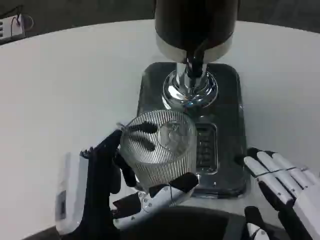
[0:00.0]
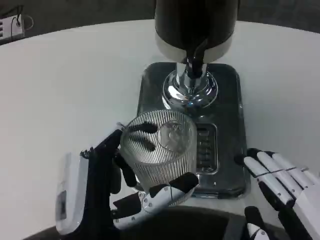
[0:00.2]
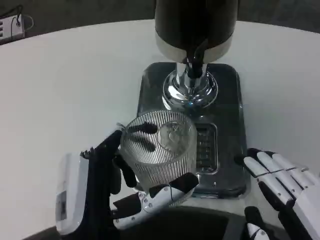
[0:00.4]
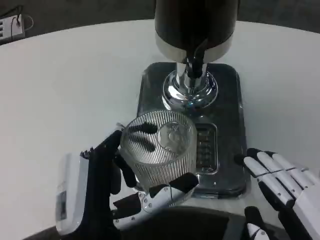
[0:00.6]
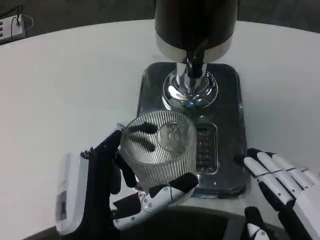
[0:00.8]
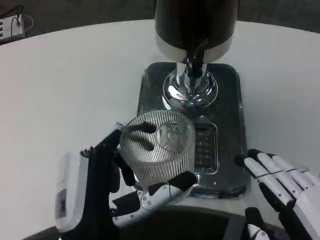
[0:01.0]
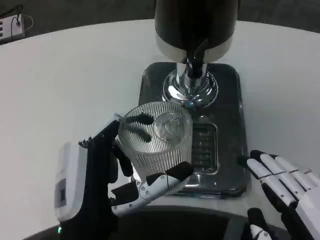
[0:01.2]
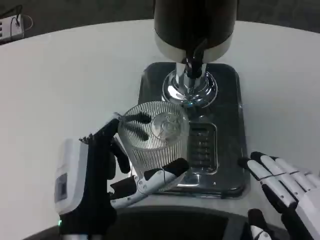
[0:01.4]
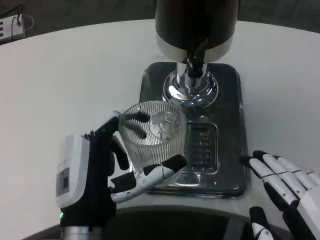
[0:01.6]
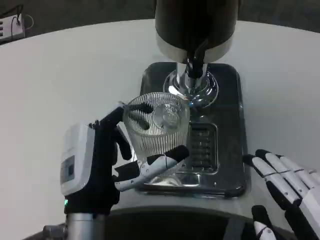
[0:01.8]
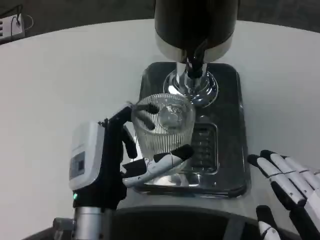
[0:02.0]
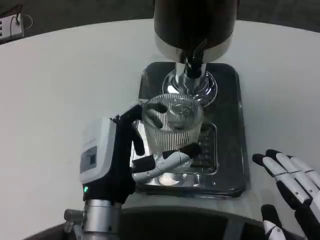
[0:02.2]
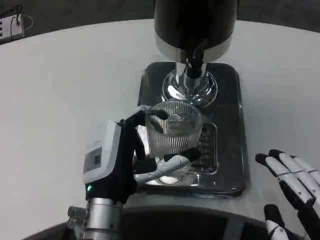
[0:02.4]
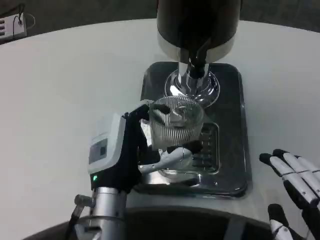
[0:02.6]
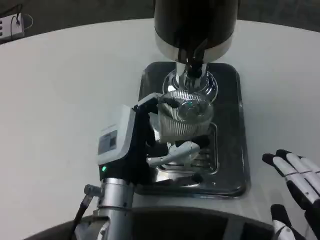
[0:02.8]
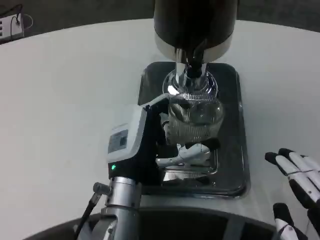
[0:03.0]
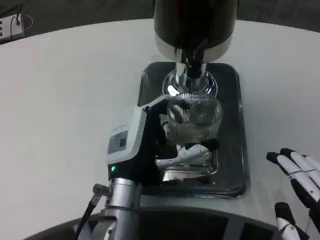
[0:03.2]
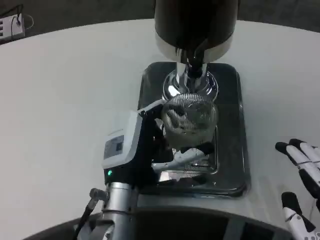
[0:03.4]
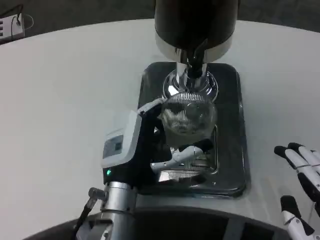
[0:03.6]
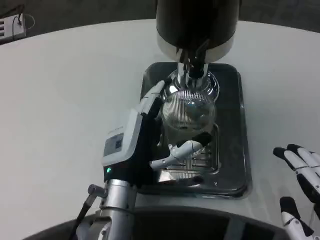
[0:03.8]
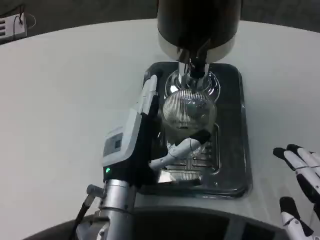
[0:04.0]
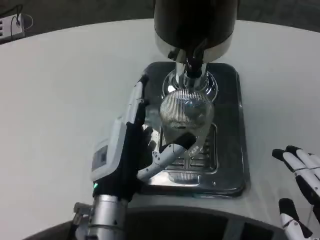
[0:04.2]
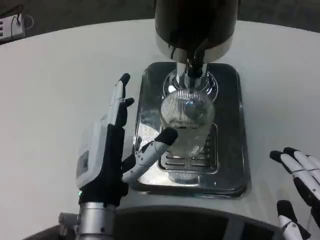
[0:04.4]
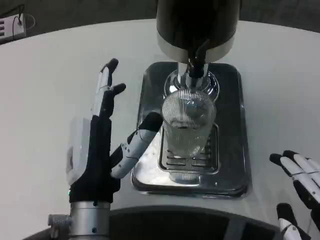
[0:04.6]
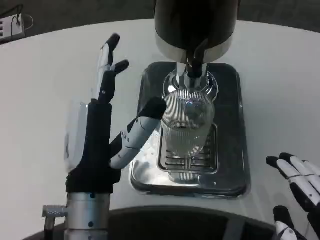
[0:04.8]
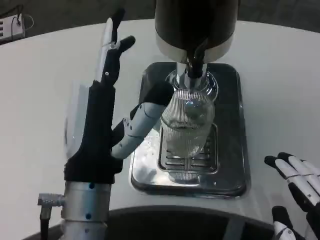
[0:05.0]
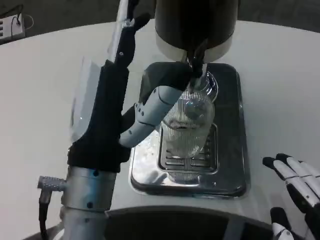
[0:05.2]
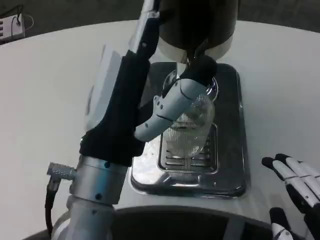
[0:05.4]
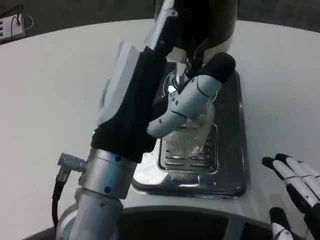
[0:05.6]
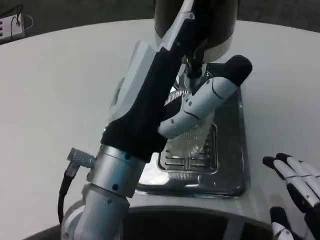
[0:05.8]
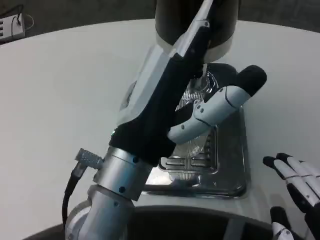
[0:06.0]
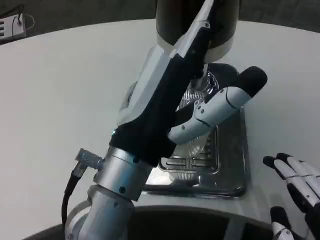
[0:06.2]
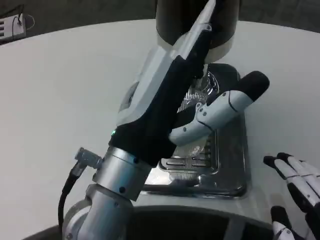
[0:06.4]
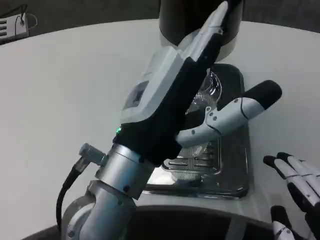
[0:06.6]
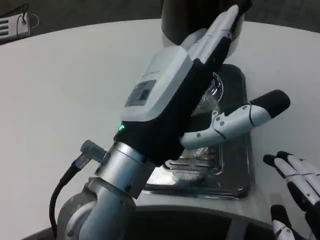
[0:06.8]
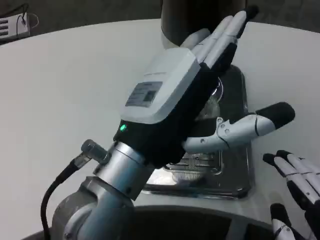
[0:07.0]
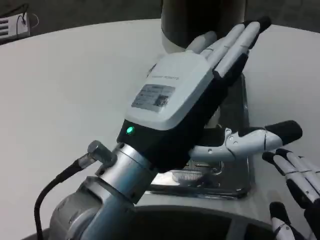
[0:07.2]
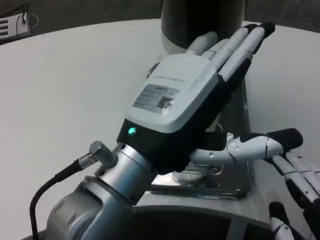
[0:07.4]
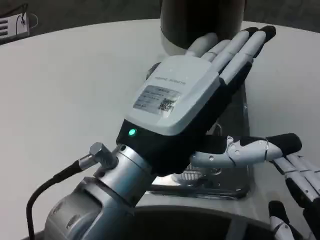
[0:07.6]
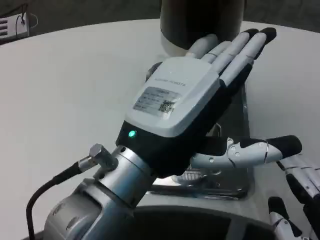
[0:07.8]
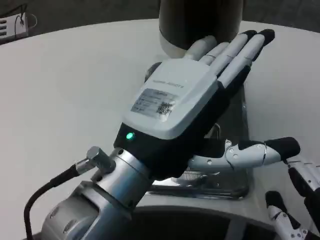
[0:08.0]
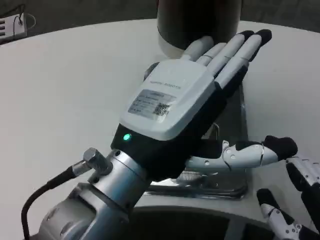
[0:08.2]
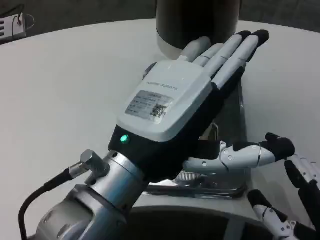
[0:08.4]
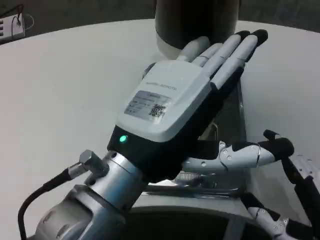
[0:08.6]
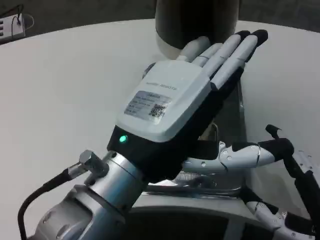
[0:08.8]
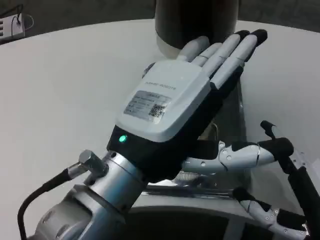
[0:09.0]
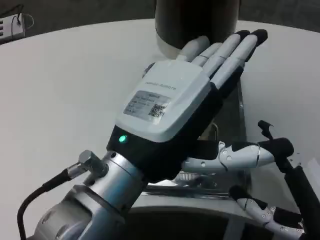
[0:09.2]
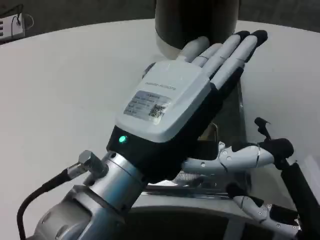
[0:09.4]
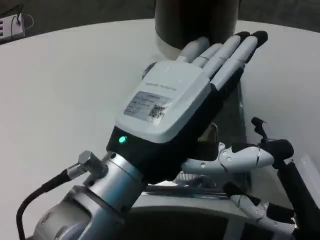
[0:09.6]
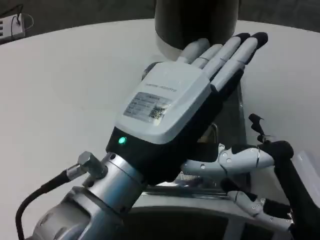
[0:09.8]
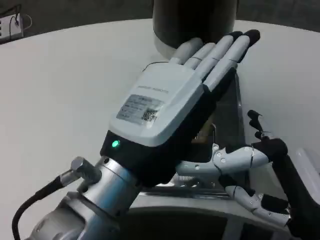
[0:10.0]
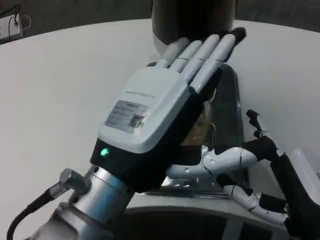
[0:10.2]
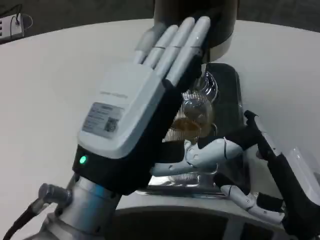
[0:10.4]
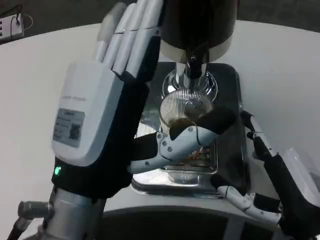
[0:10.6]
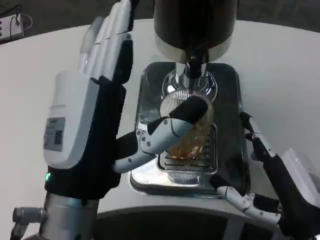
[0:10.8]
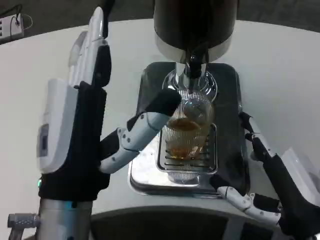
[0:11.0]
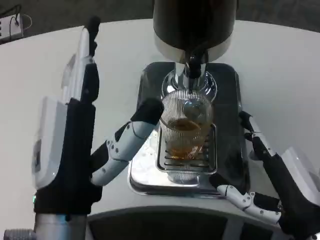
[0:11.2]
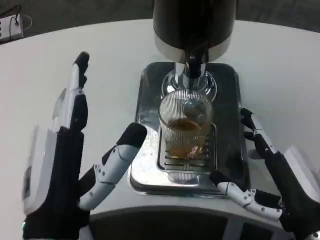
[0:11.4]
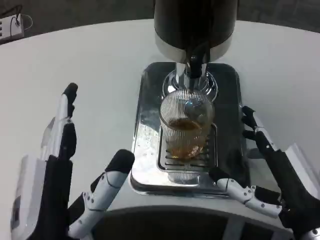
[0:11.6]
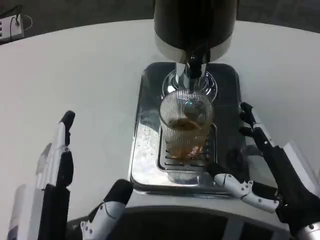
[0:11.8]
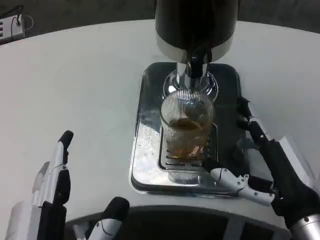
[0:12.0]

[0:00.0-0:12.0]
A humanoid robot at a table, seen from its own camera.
Task of the whole recording: Grasp the cup under the faucet to collect the drink, then remove the cup.
0:00.0 to 0:01.6: The hands make only small movements.
0:01.6 to 0:03.0: The left hand is displaced forward by about 10 cm.
0:03.0 to 0:04.4: There are only small adjustments of the hands.
0:04.4 to 0:06.0: The left hand travels upward by approximately 10 cm.
0:07.6 to 0:09.0: The right hand moves forward, roughly 5 cm.
0:10.4 to 0:12.0: The left hand is displaced downward and backward by approximately 15 cm.

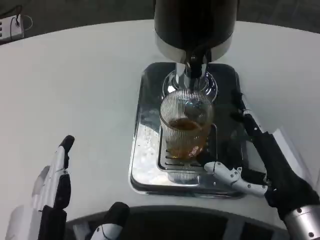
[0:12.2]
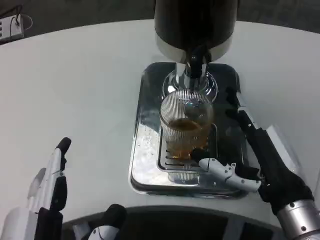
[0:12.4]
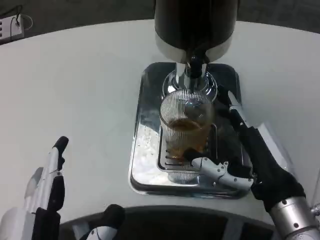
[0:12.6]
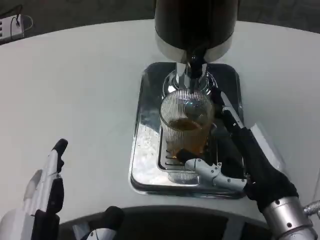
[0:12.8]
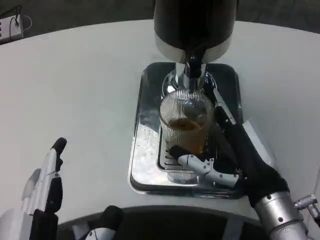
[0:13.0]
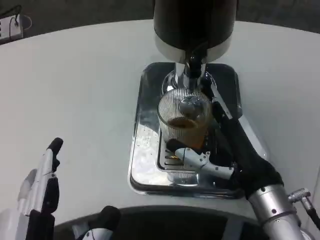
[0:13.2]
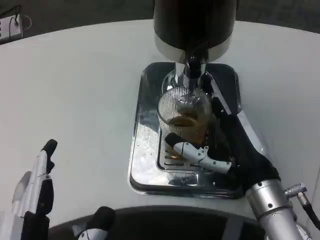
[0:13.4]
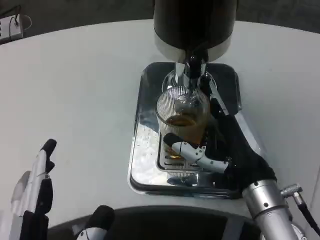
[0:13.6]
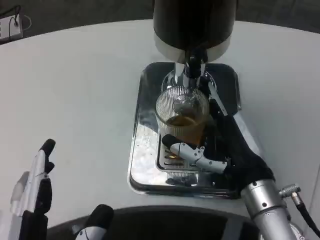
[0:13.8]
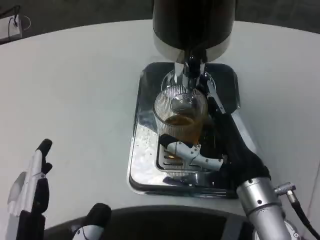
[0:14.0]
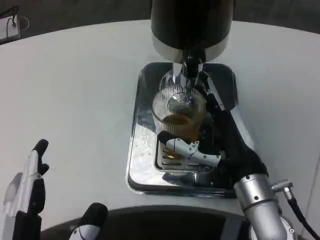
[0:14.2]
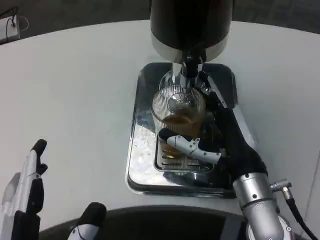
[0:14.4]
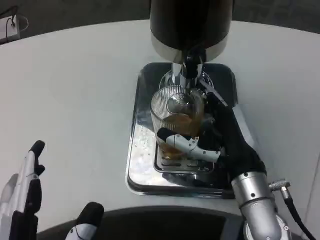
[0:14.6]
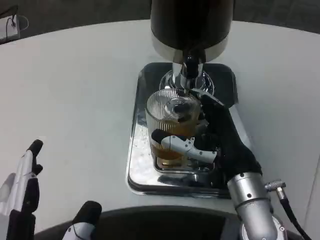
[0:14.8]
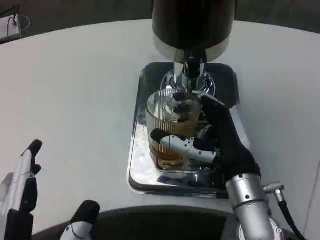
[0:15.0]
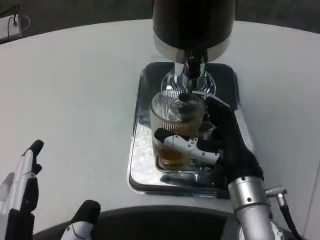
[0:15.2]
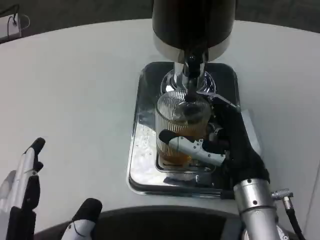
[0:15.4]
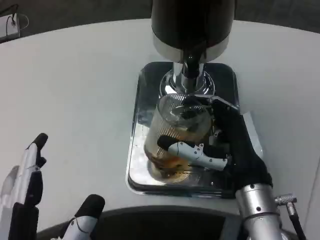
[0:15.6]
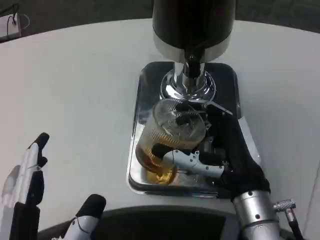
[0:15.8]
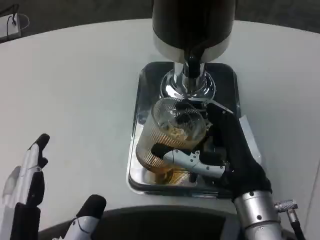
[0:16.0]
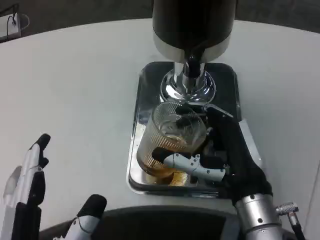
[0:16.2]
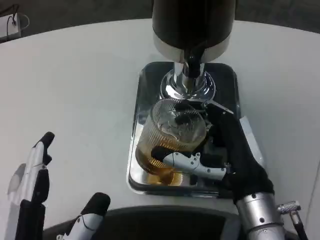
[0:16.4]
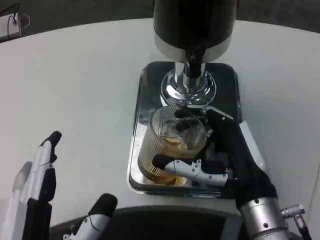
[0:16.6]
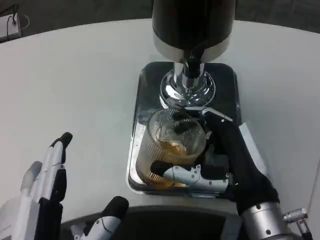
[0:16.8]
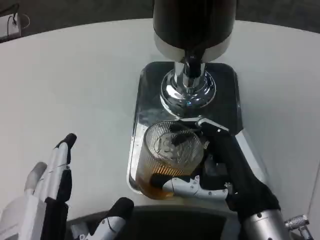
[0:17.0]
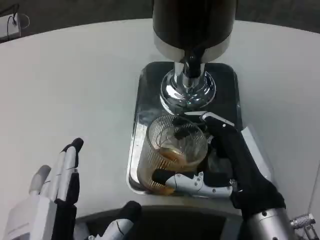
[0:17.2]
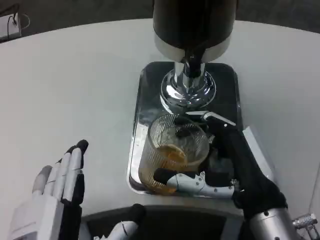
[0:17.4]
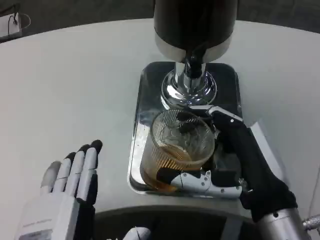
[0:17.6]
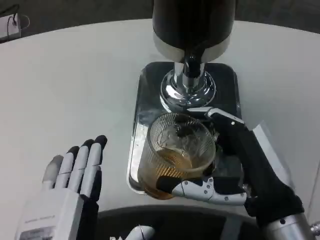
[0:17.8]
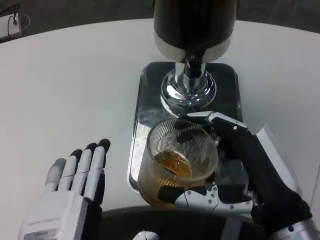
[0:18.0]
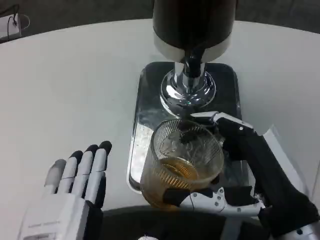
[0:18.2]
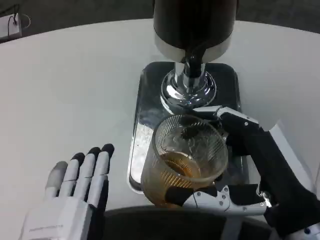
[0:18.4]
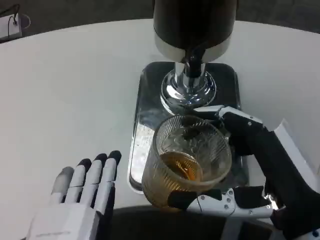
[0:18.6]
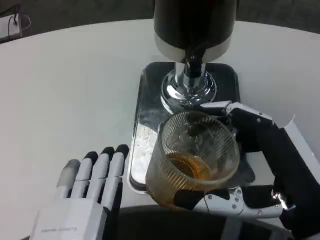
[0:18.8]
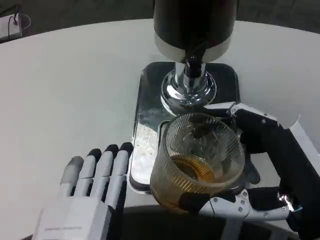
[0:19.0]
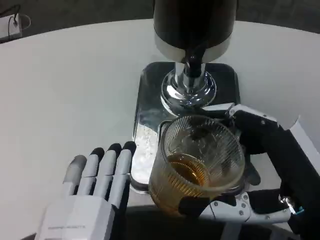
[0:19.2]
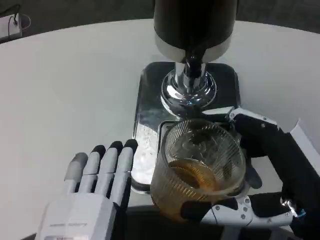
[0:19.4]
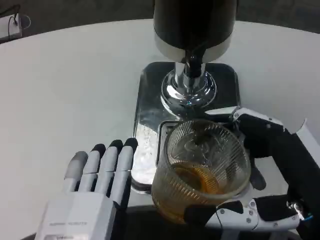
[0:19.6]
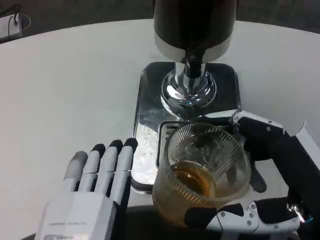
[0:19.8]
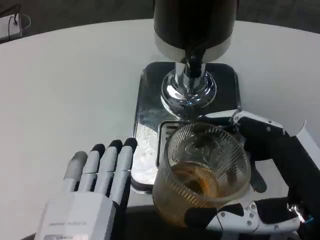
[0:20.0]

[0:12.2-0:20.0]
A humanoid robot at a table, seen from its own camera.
Task of the whole recording: Grasp the cup under the faucet to collect the drink, then remove the cup.
0:12.2 to 0:13.8: The right hand changes place by approximately 5 cm.
0:13.8 to 0:15.4: The hands make only small movements.
0:16.8 to 0:18.4: The right hand heads backward, covering about 5 cm.

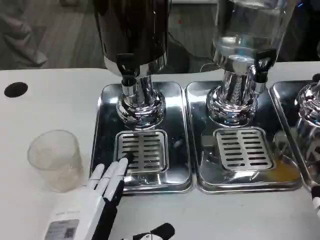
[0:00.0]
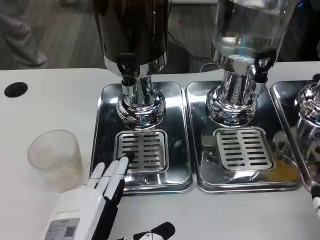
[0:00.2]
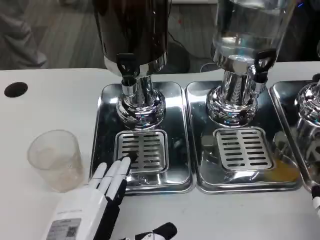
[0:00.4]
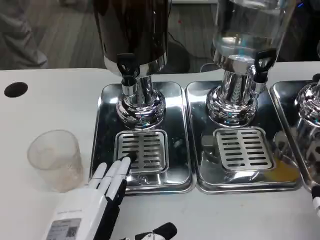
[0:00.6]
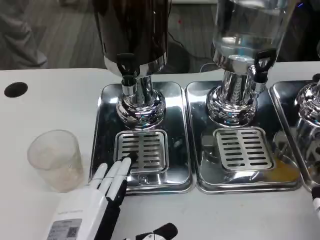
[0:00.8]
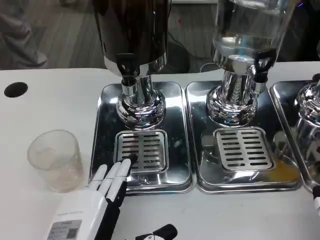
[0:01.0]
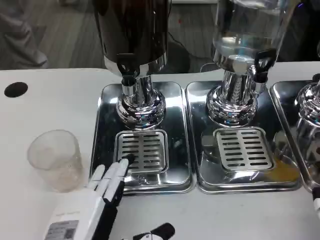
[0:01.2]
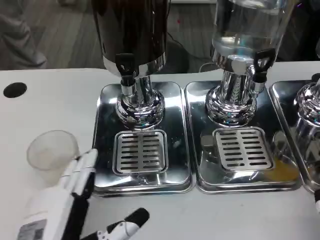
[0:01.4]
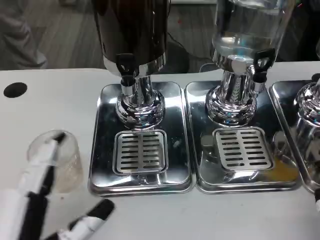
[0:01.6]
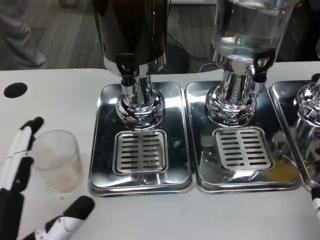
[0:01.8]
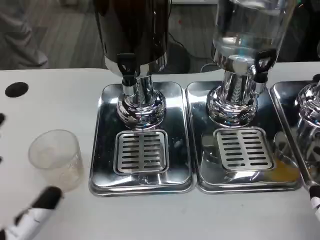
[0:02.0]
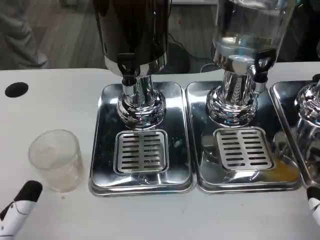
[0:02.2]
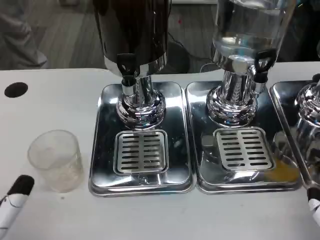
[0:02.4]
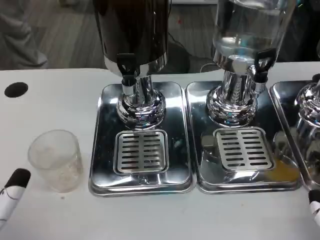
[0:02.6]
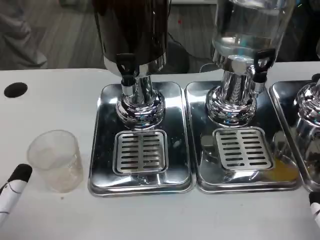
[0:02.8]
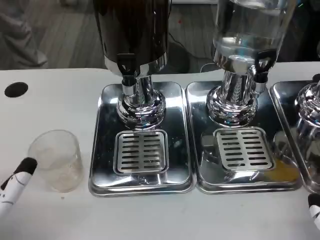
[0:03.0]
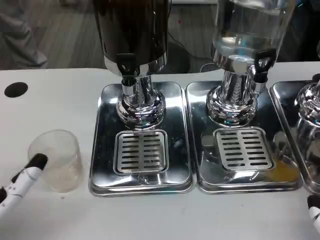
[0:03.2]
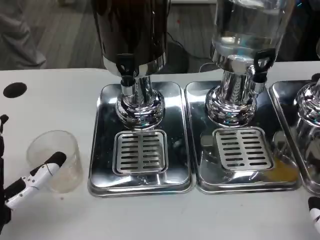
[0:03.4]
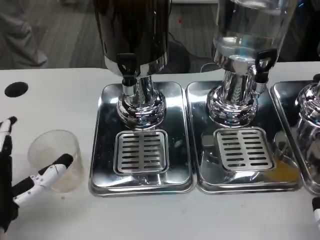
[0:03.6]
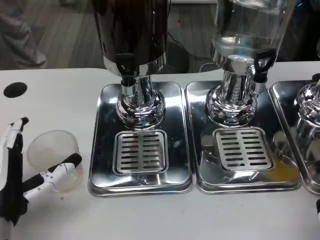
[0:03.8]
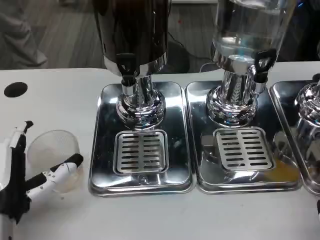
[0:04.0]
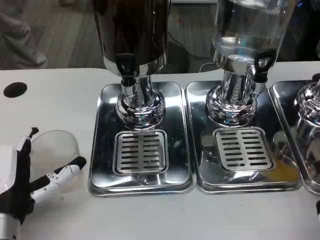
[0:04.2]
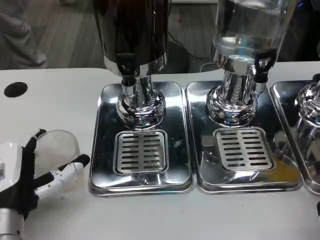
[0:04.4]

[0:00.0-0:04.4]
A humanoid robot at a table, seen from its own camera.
Task of the whole recording: Grasp the cup under the faucet to collect the drink, then remove the cup.
0:00.0 to 0:01.4: There are only small adjustments of the hands.
0:01.4 to 0:03.0: The left hand is displaced to the left by approximately 5 cm.
0:03.0 to 0:04.4: The left hand shifts some 5 cm forward.
